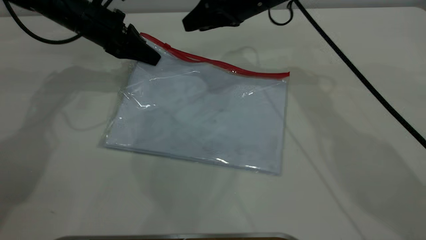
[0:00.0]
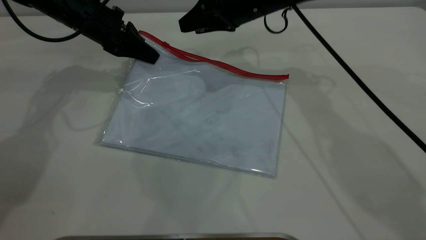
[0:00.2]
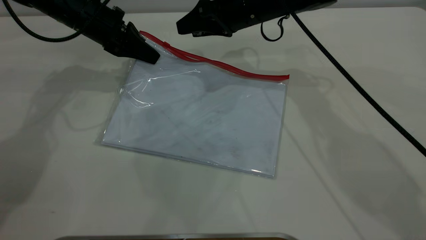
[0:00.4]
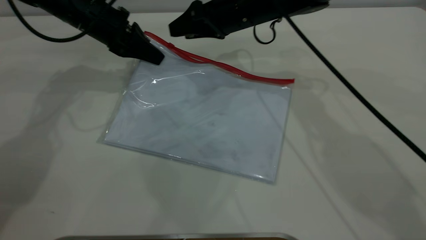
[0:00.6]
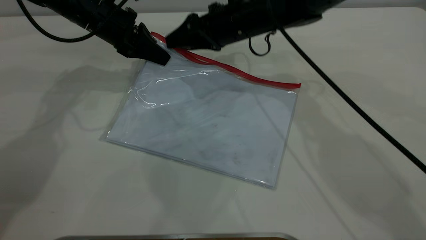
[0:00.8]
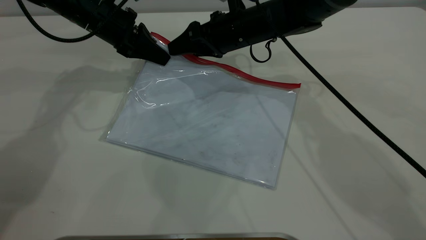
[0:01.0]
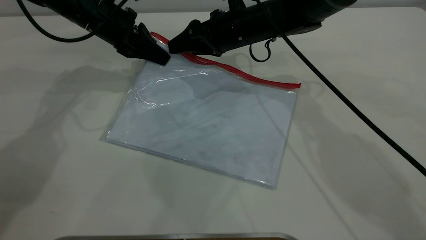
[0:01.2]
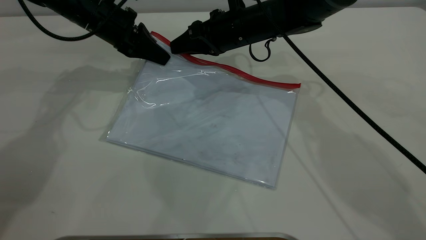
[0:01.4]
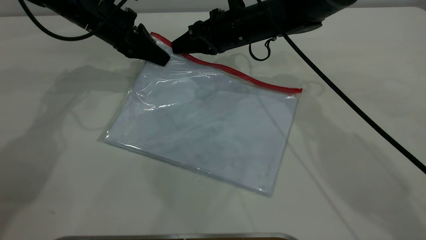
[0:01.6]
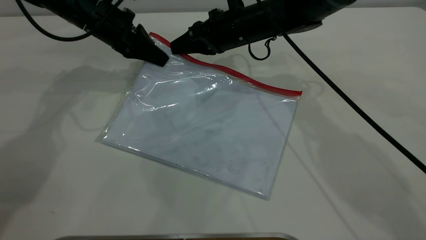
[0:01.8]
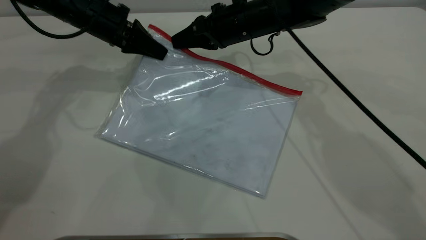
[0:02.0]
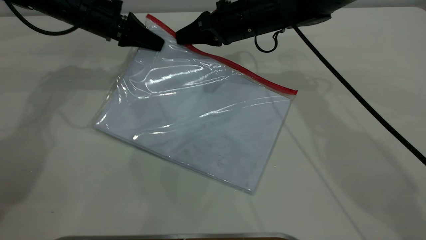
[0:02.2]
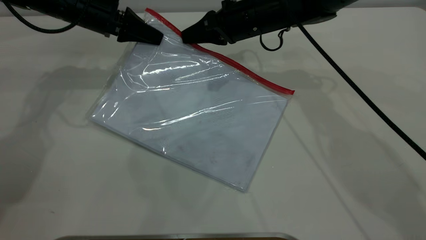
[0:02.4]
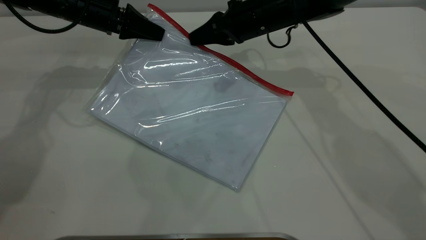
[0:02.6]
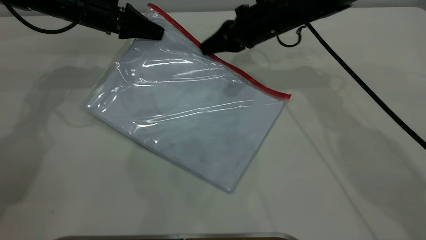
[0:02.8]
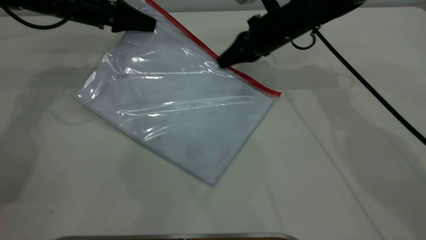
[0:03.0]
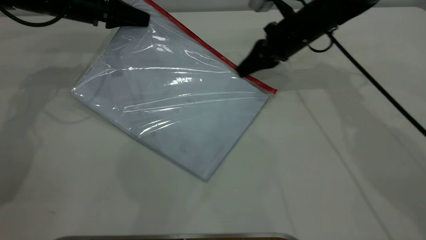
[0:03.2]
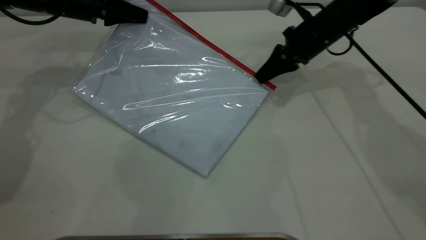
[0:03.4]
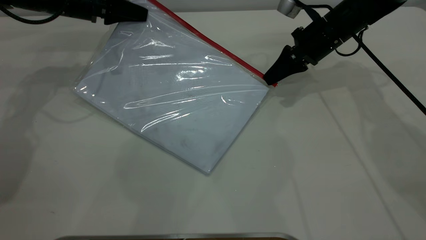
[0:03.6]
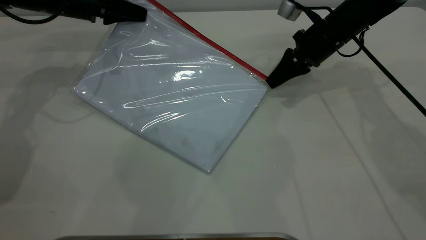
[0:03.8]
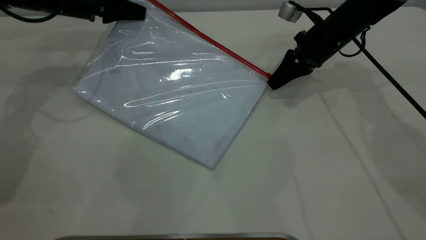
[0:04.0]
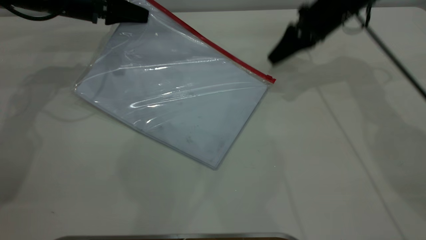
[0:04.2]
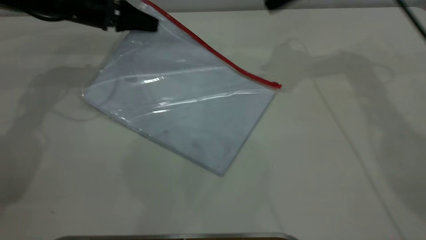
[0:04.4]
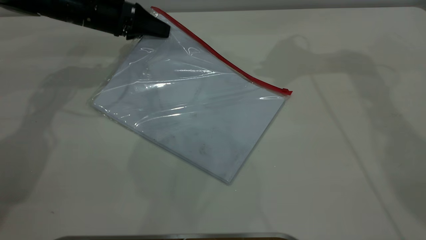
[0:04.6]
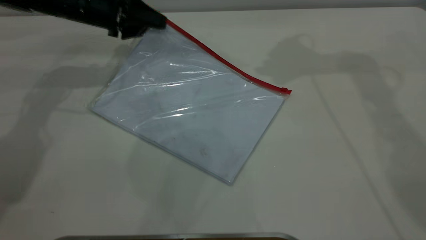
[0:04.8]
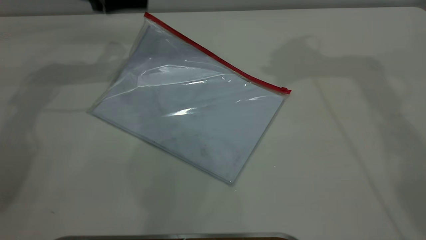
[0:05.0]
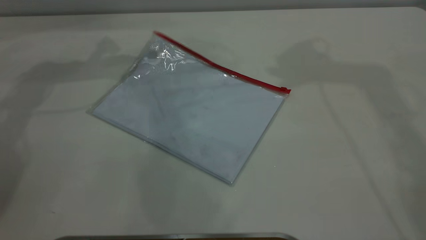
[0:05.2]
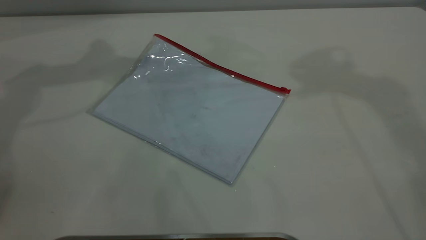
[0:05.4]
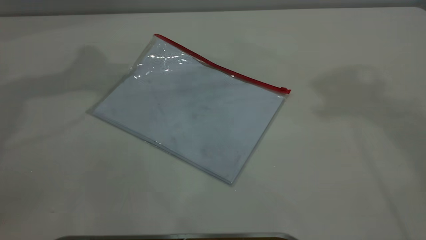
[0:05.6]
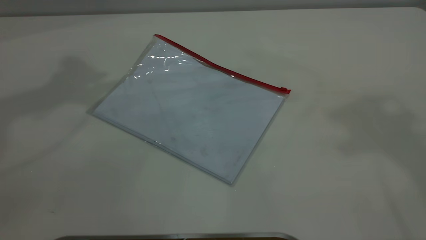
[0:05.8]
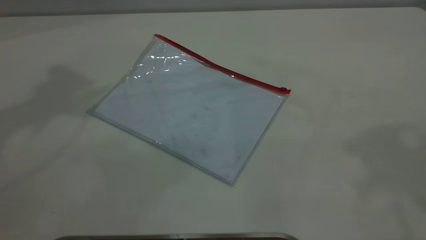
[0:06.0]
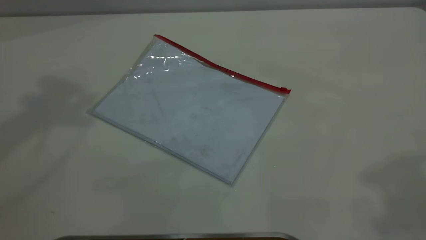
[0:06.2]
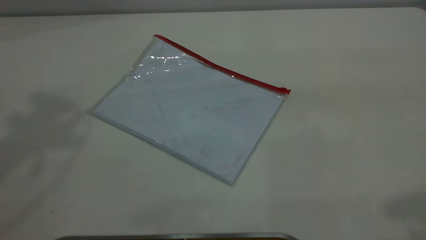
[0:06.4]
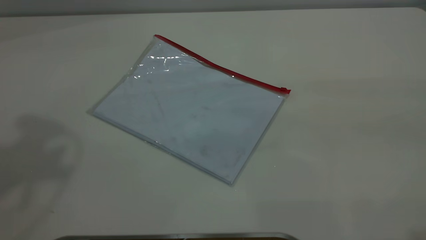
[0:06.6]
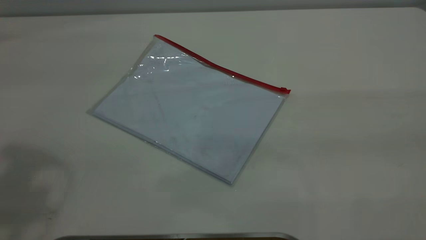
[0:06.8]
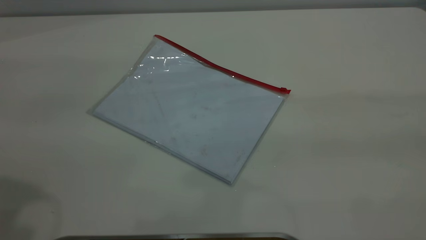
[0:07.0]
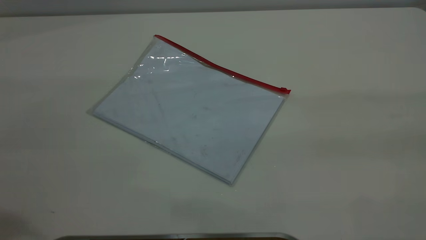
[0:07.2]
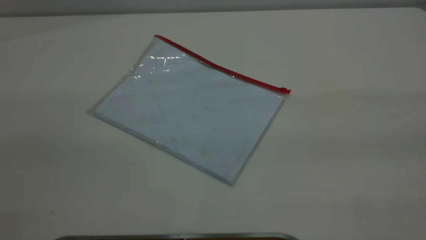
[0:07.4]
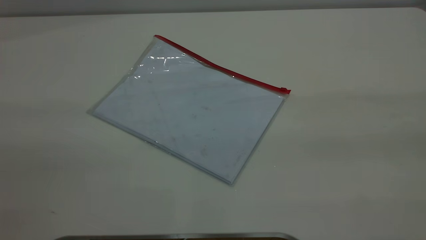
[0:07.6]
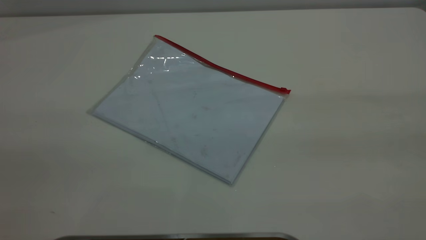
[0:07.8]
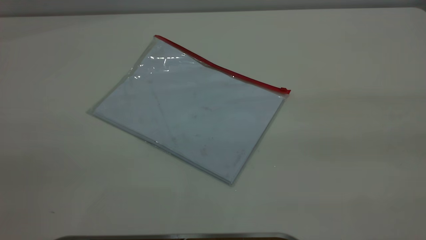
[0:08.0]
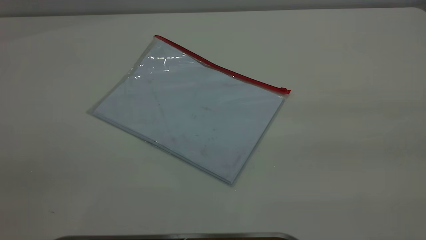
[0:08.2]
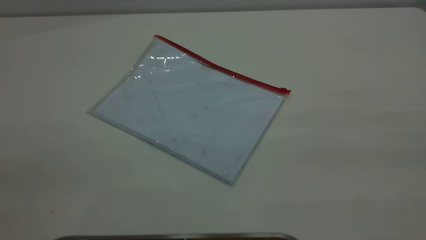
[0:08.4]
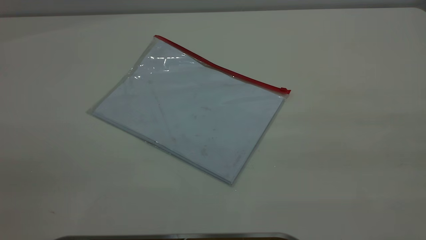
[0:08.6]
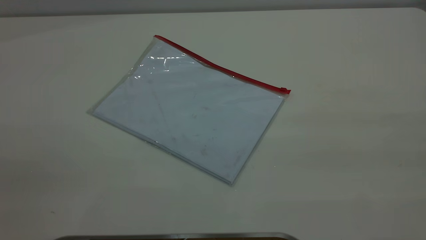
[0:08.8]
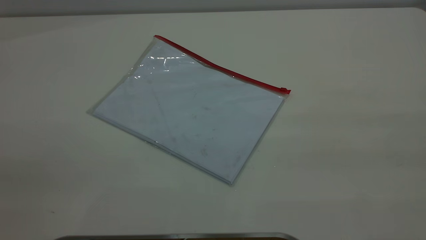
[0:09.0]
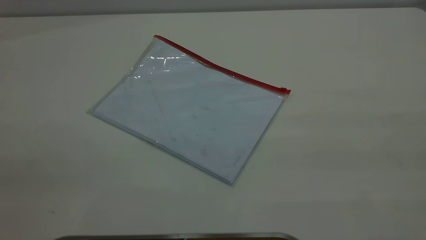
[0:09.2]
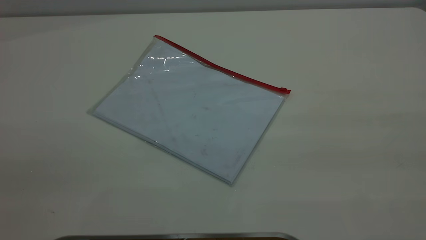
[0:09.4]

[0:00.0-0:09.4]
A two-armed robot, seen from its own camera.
Step, 0:00.0 to 0:04.0: Pulling up the zipper on the transparent plastic bag with the right gripper to close it.
Step, 0:04.4 to 0:05.0: Place the transparent plastic bag.
0:00.0 to 0:01.6: The right gripper is displaced downward by about 5 cm, and closes its fingers.
0:01.6 to 0:03.2: The right gripper goes some 10 cm to the right. Meanwhile the left gripper heads to the left, covering approximately 5 cm.
0:03.2 to 0:04.8: The left gripper opens. The right gripper shifts roughly 25 cm upward, and opens.
0:04.8 to 0:06.2: The left gripper travels upward by approximately 40 cm; the right gripper is displaced backward and upward by about 35 cm.

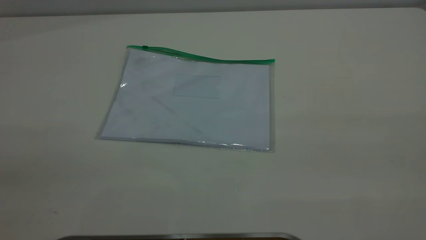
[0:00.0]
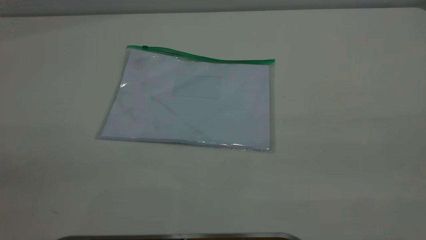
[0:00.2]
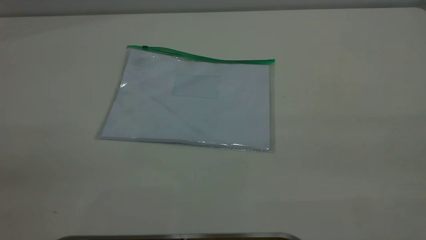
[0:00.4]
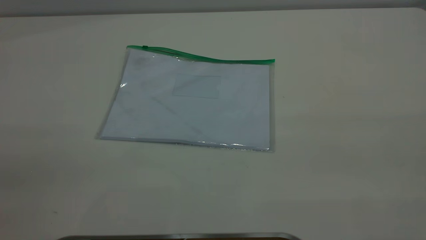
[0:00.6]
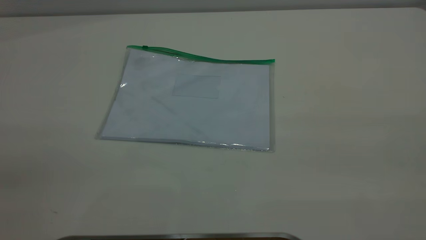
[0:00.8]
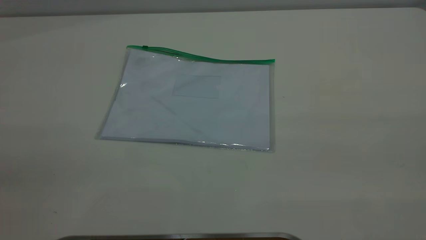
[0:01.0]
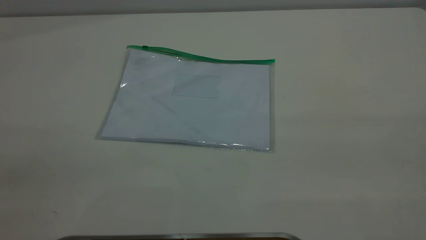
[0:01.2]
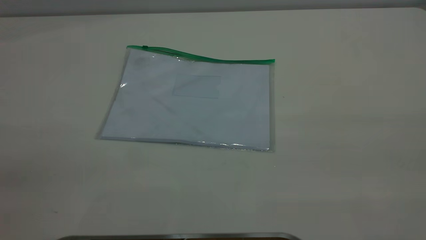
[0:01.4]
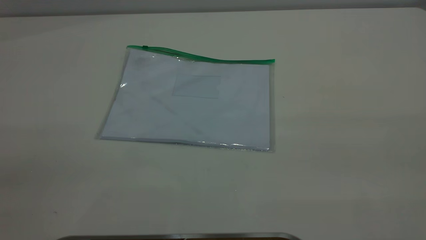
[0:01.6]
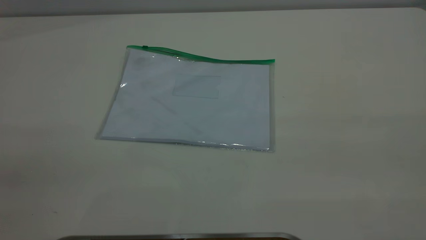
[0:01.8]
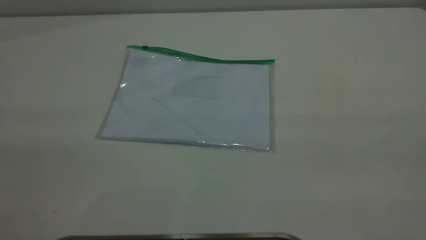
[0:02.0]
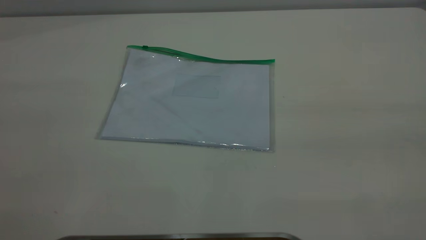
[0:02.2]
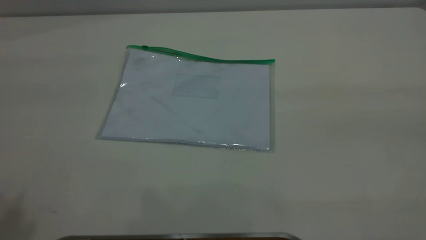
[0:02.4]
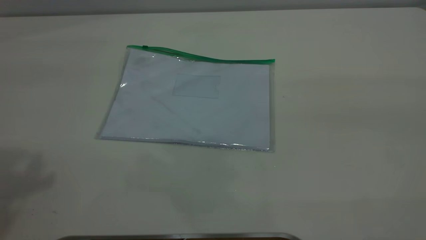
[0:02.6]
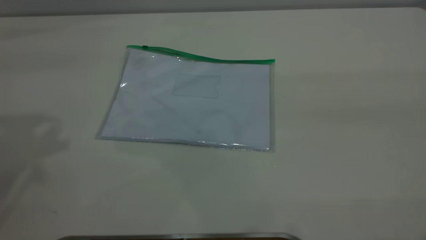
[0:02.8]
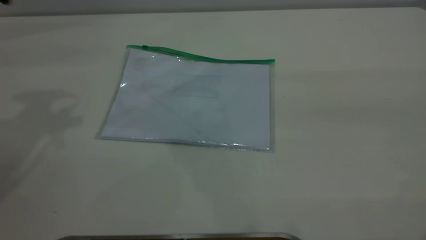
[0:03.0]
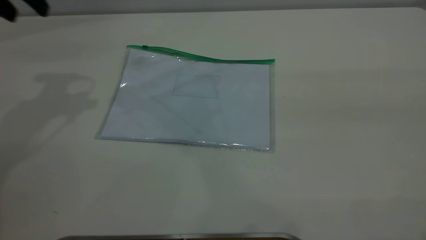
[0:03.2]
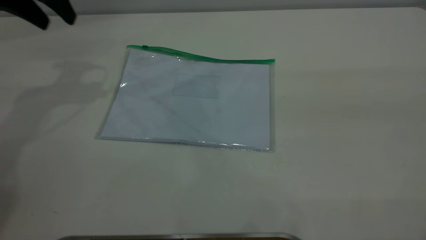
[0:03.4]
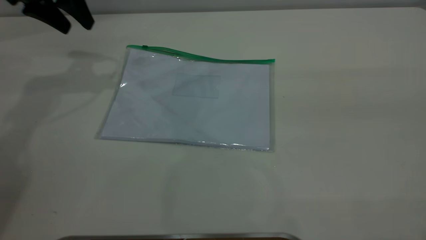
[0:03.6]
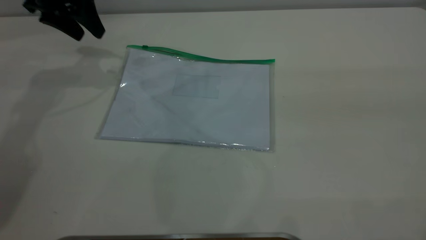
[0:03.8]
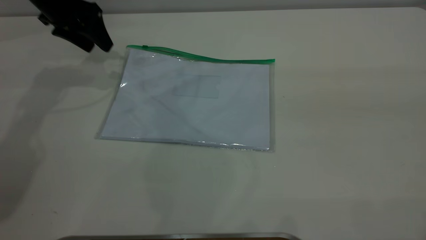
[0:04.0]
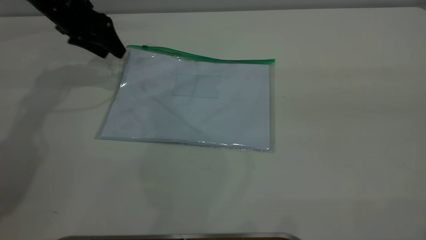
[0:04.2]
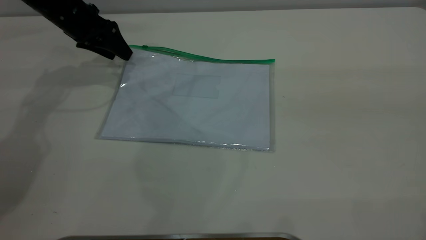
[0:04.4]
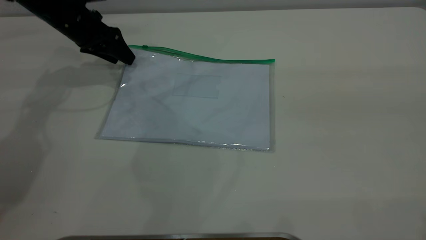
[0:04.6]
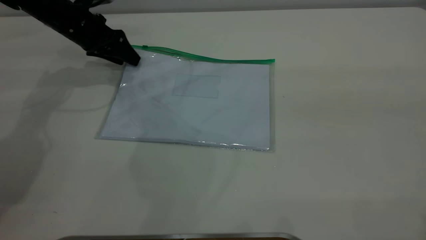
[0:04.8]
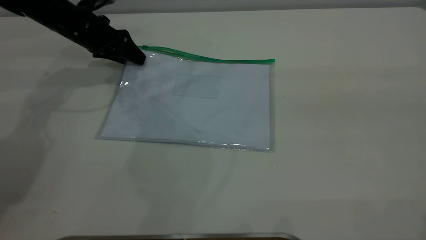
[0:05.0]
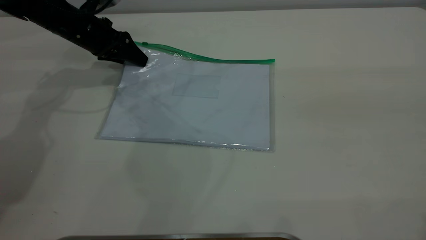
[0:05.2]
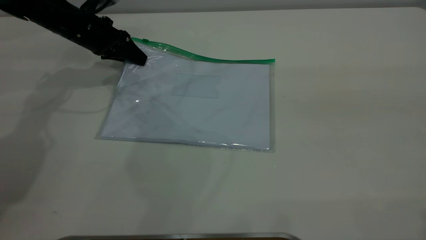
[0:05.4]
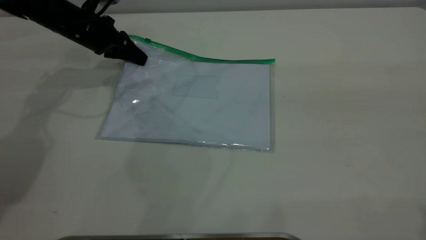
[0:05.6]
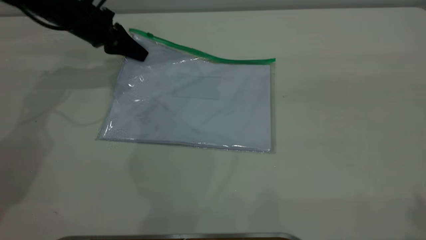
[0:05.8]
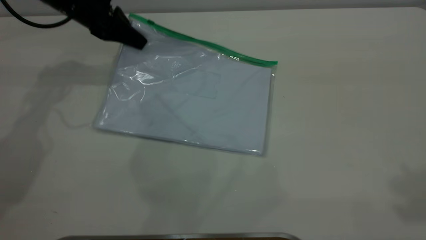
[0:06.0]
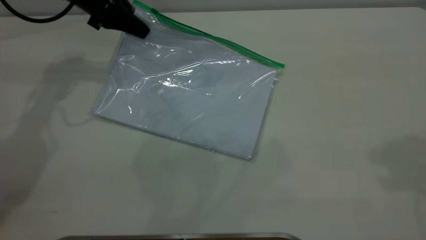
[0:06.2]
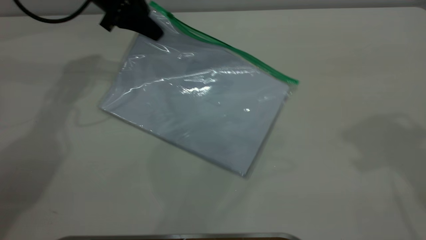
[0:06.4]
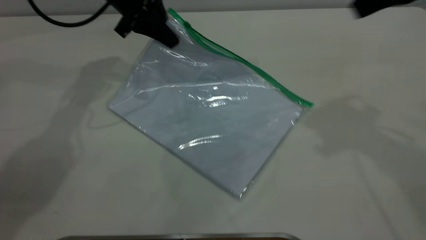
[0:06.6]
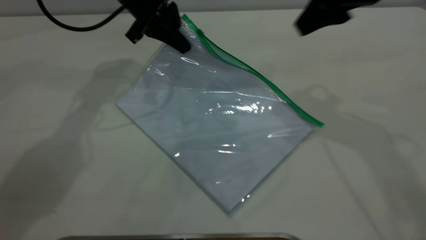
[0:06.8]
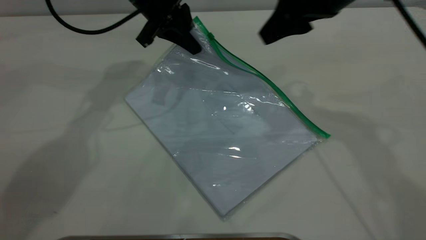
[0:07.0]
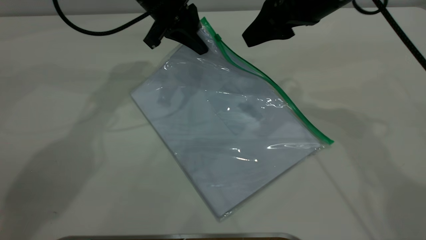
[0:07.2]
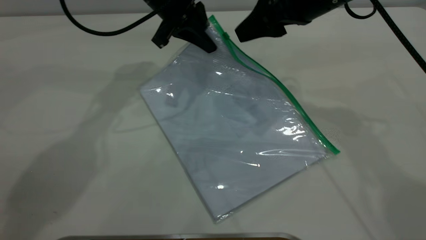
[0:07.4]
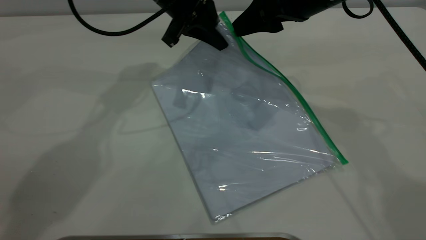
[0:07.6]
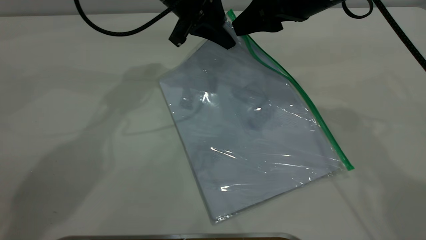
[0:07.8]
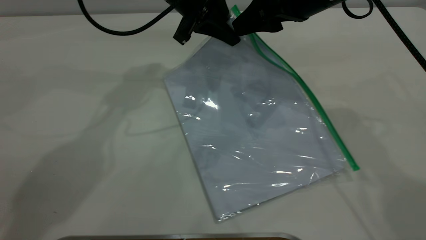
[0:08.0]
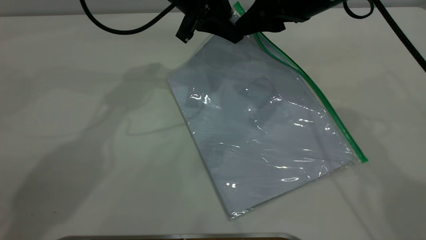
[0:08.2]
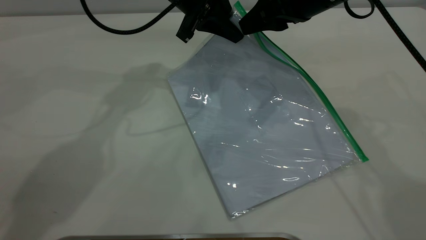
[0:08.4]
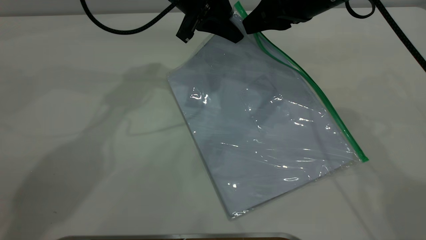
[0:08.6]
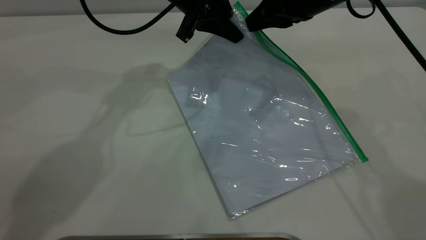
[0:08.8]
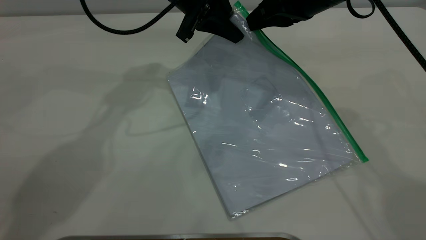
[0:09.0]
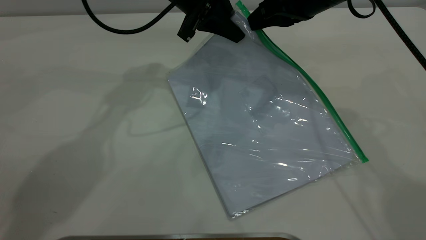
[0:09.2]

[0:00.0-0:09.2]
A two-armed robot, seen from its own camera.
Step, 0:00.0 to 0:05.8: Pick up the transparent plastic bag with the left gripper.
0:00.0 to 0:01.6: Both grippers stay put.
0:03.0 to 0:04.6: The left gripper travels downward and forward by approximately 25 cm.
0:04.6 to 0:06.2: The left gripper goes some 5 cm upward, and closes up. The right gripper shifts roughly 15 cm forward.
0:06.2 to 0:07.6: The left gripper moves to the right, roughly 15 cm; the right gripper is displaced downward, to the left and forward by roughly 25 cm.
0:07.6 to 0:09.2: The right gripper closes up.
